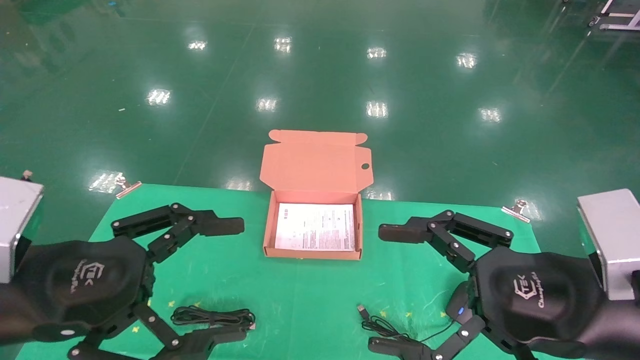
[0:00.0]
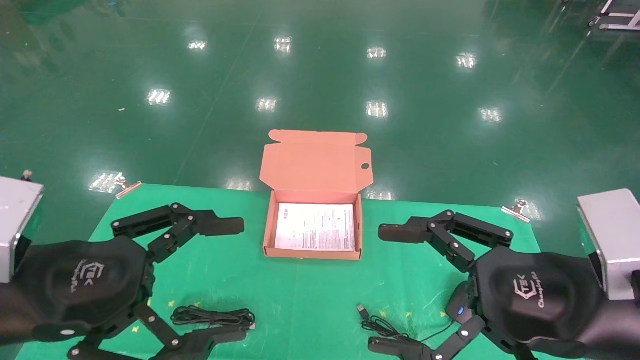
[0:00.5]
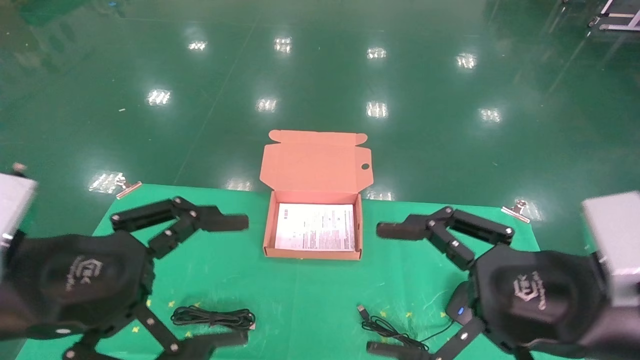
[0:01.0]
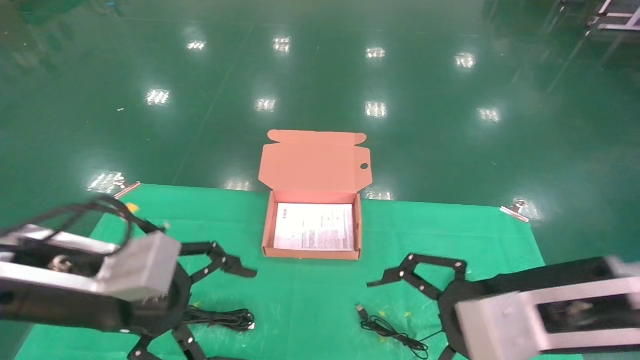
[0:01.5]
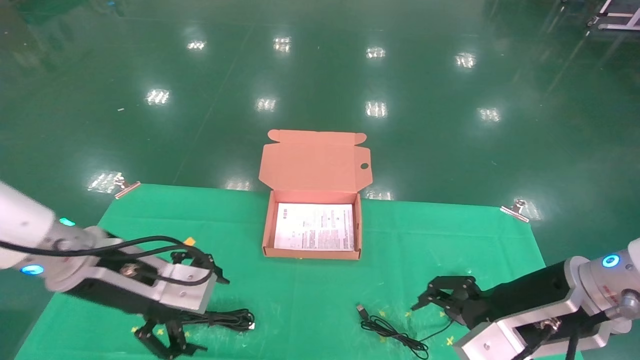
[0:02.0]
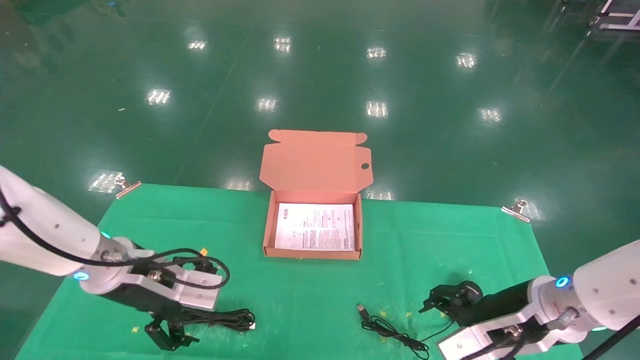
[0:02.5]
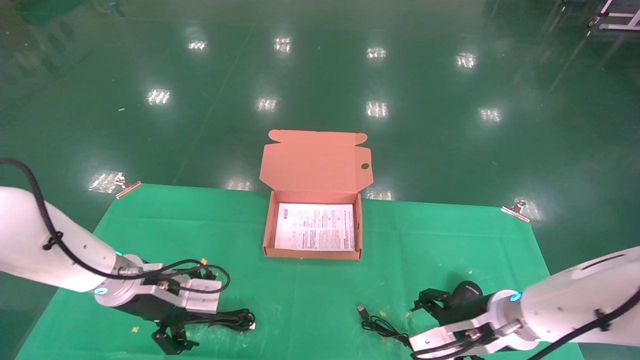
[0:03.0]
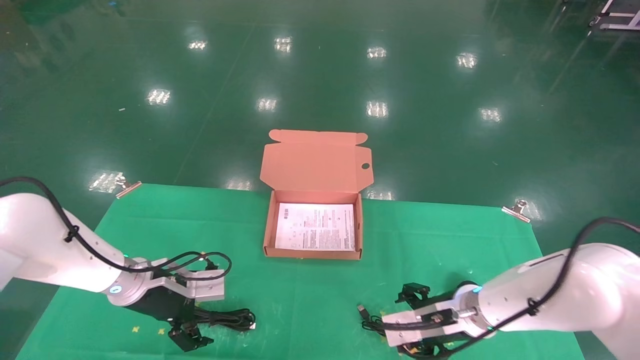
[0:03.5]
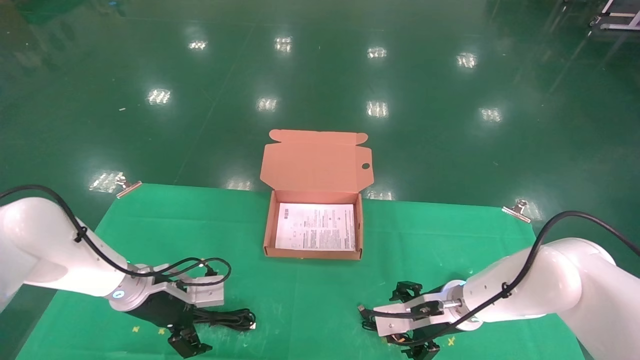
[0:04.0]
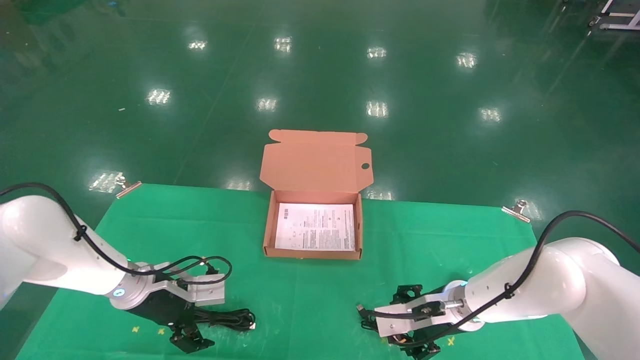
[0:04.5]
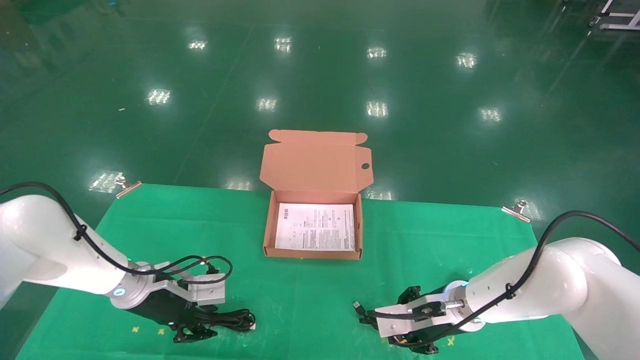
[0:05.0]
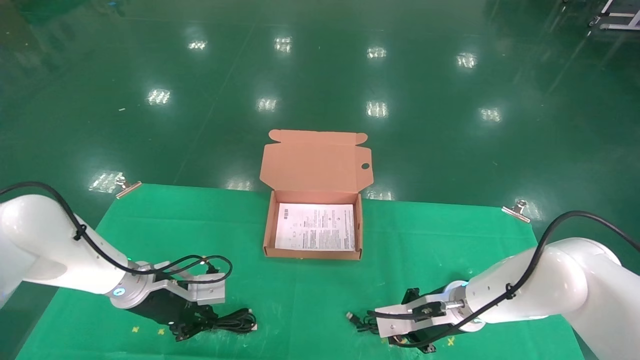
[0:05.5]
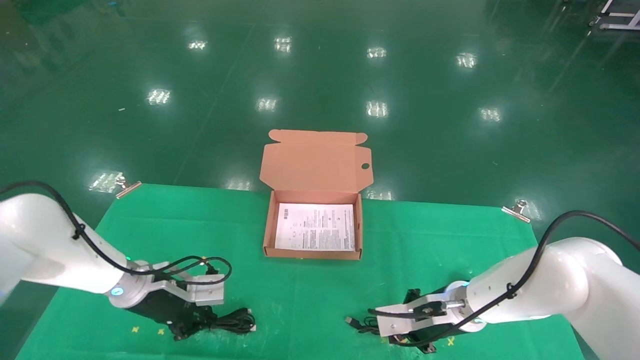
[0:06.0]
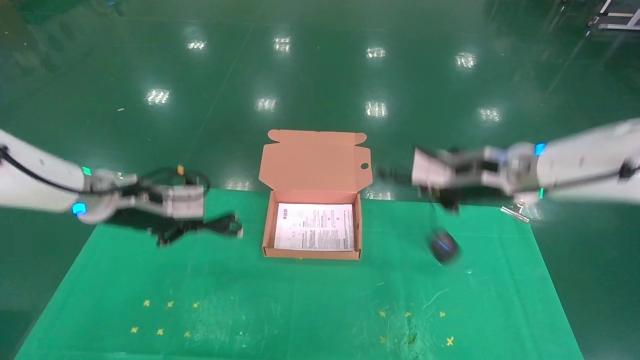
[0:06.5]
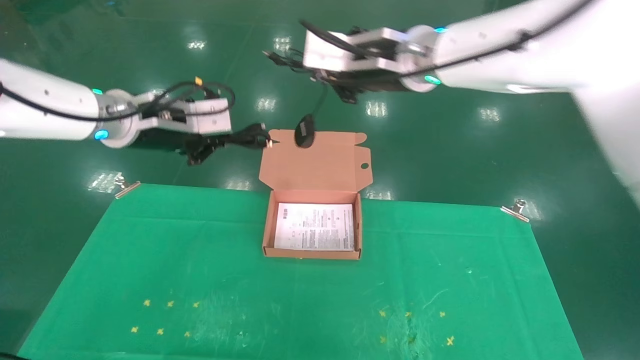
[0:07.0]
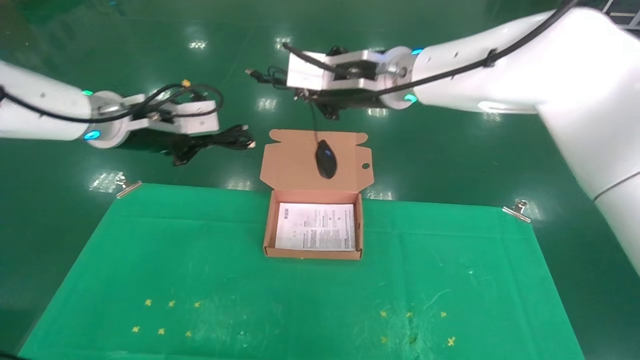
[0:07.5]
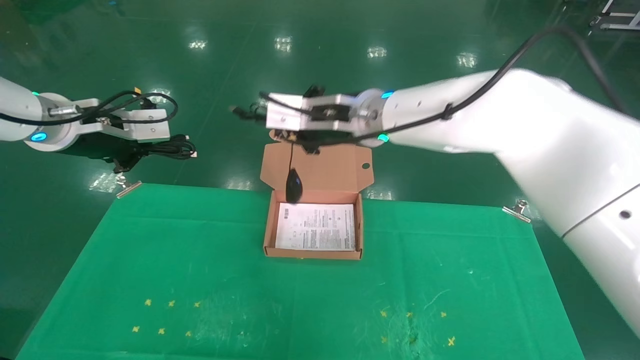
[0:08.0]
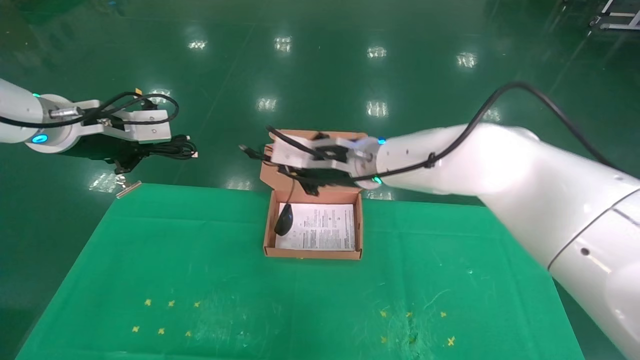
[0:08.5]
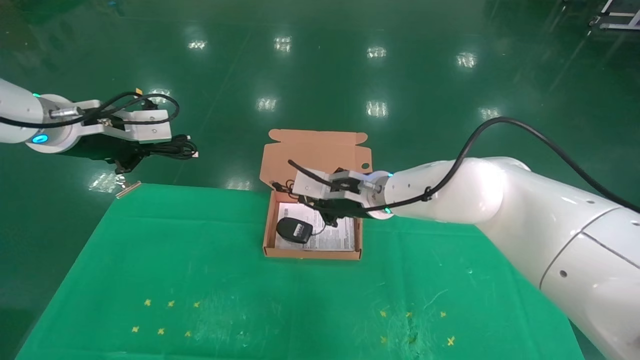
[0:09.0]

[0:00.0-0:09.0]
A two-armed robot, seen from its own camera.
Task of the whole recording: grasp data cable left put into box grasp mouse right put into box.
Step, 0:01.0 to 0:05.0: Grab and pick up both the mouse and power cord from the accessory packaging area at the same time.
0:00.0 to 0:02.0: The two grippers go approximately 10 cm forward.
0:02.0 to 0:04.5: The left gripper heads downward and forward, covering roughly 15 cm; the right gripper moves forward, downward and to the left, roughly 20 cm.
0:04.5 to 0:07.0: Both grippers move upward, approximately 30 cm. The right gripper closes; the left gripper closes its fingers.
0:07.0 to 0:09.0: The left gripper travels to the left by about 5 cm; the right gripper shifts some 20 cm downward.

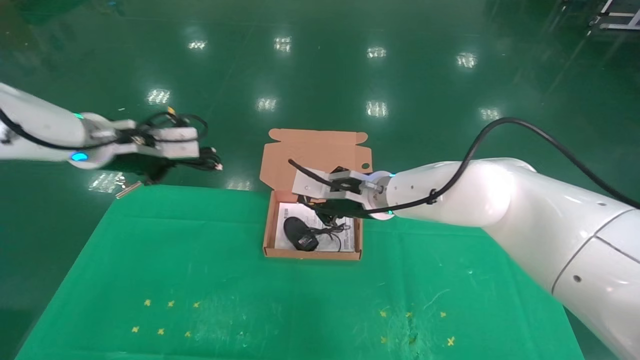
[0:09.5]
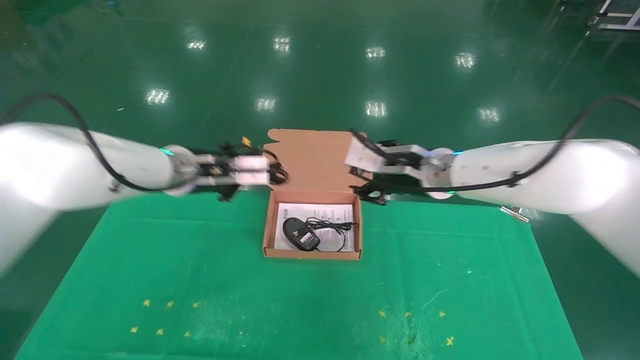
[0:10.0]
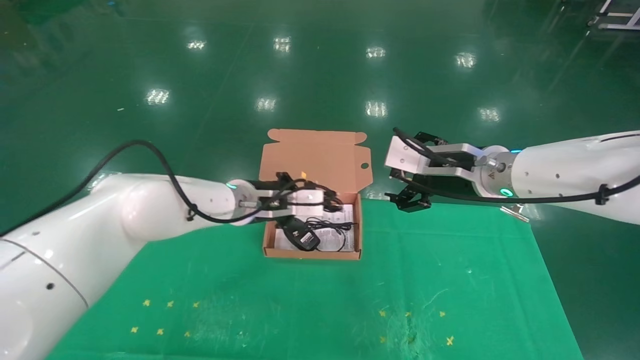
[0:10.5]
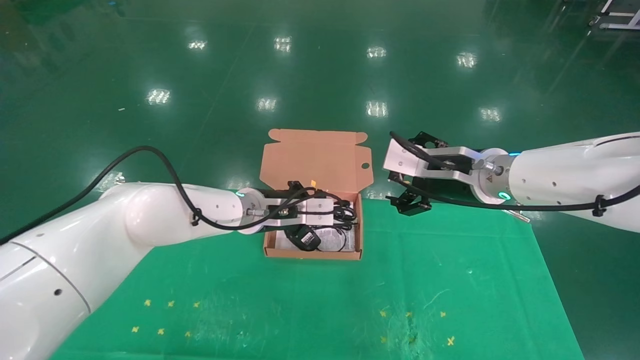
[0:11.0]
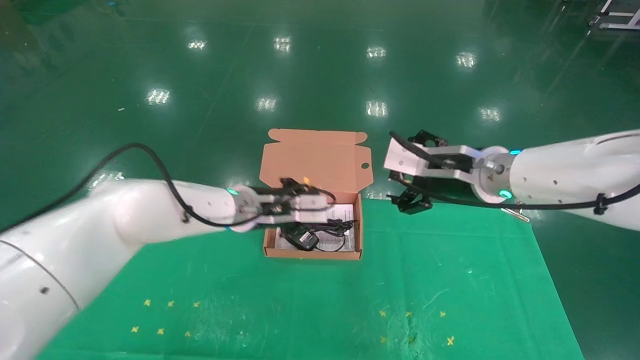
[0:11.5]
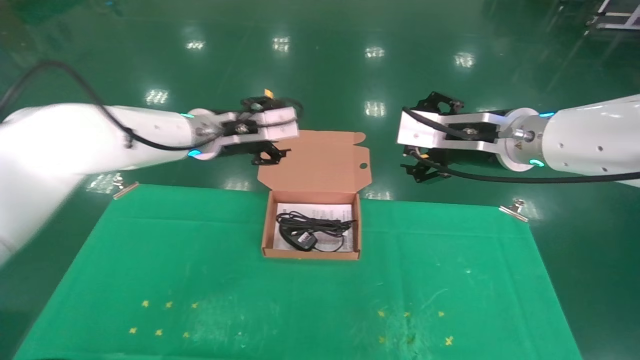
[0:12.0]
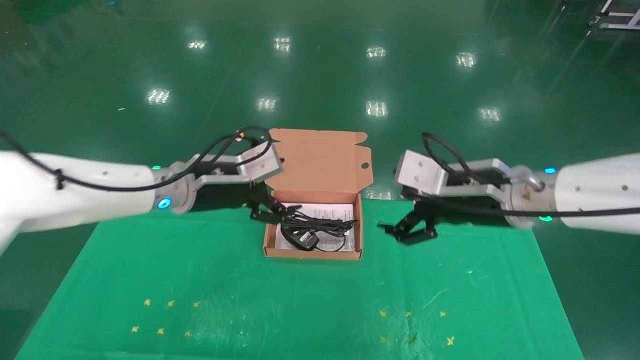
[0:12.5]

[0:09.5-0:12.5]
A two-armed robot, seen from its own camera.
Task of the whole recording: grasp data cable left put into box grasp mouse right put into box.
Step, 0:09.5 to 0:11.5: Place the mouse and power cord into the box.
0:09.5 to 0:11.0: The left gripper travels to the right and downward by some 20 cm; the right gripper is displaced to the right and backward by roughly 15 cm, and opens its fingers.
0:11.0 to 0:12.5: The right gripper moves roughly 5 cm. Meanwhile the left gripper is displaced to the left by roughly 10 cm, and opens up.

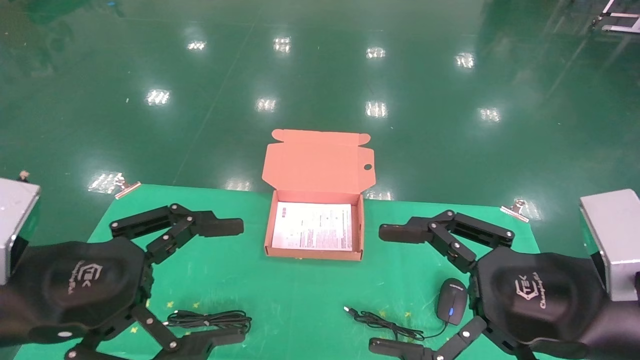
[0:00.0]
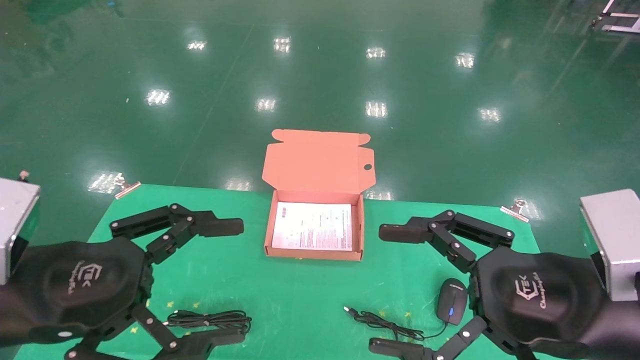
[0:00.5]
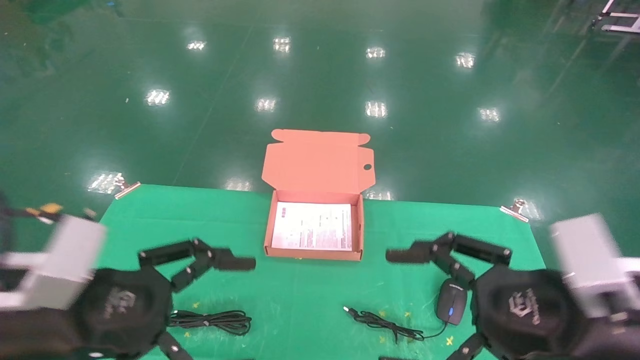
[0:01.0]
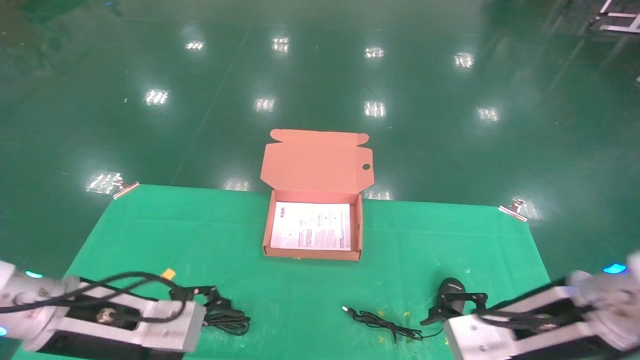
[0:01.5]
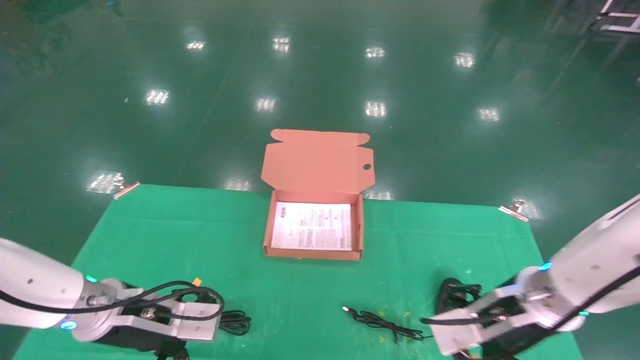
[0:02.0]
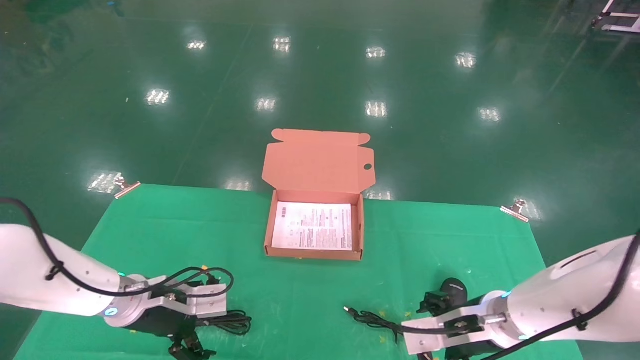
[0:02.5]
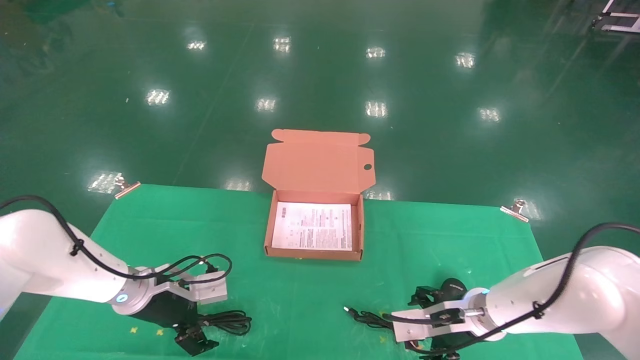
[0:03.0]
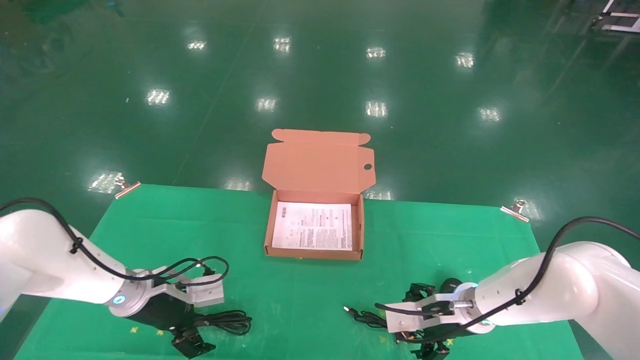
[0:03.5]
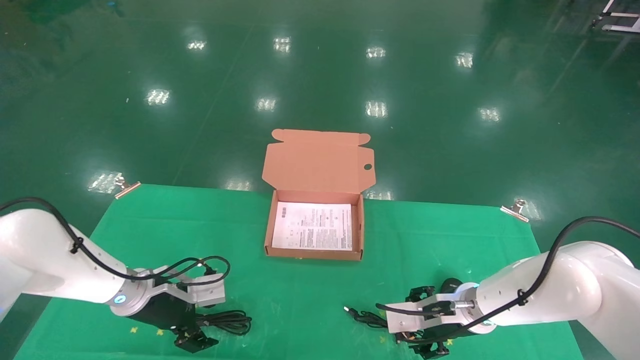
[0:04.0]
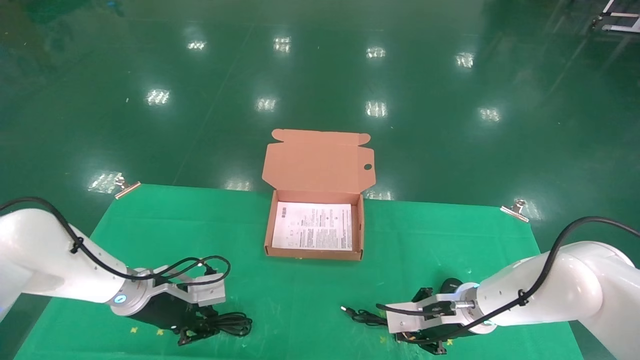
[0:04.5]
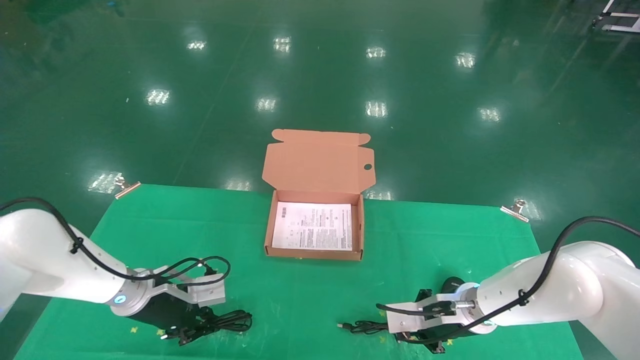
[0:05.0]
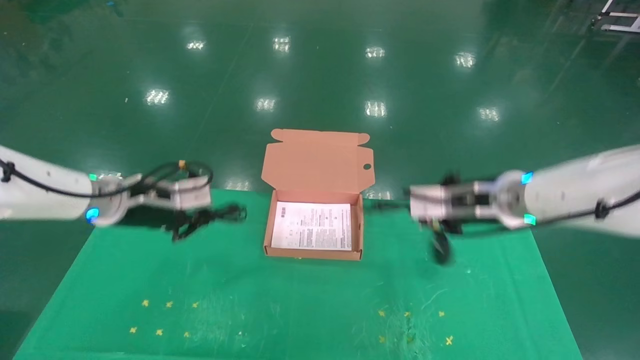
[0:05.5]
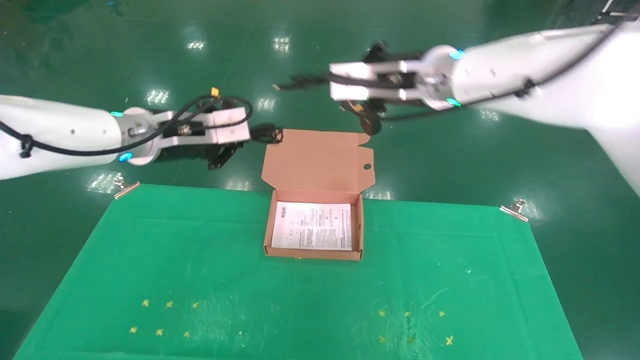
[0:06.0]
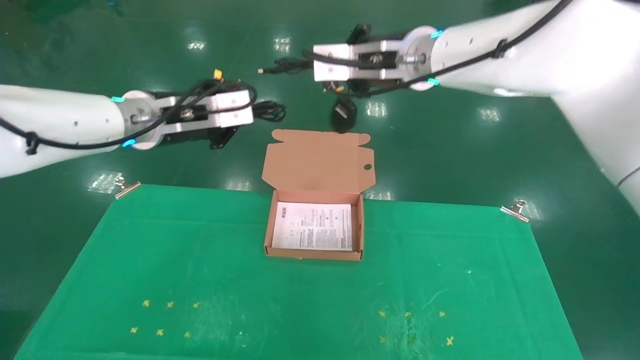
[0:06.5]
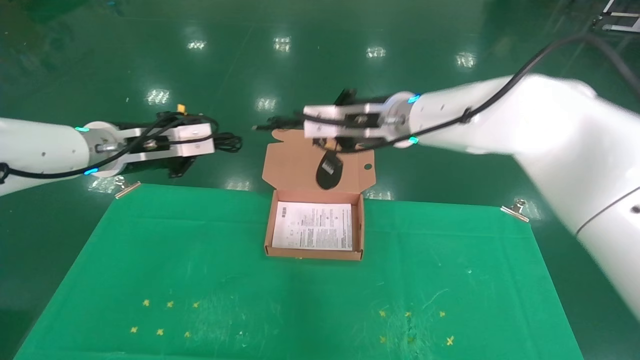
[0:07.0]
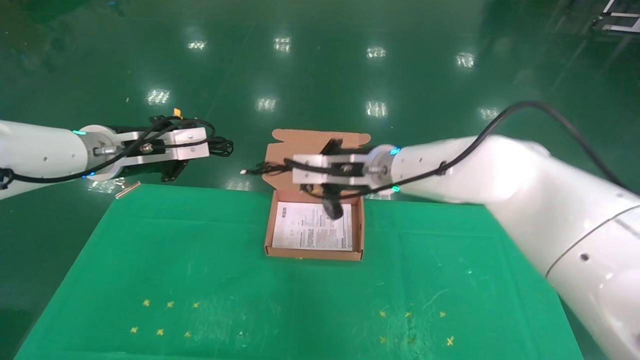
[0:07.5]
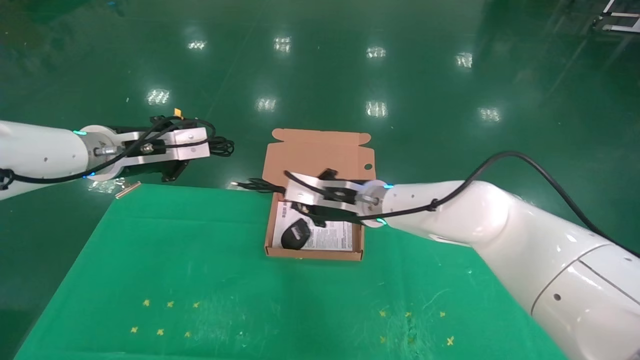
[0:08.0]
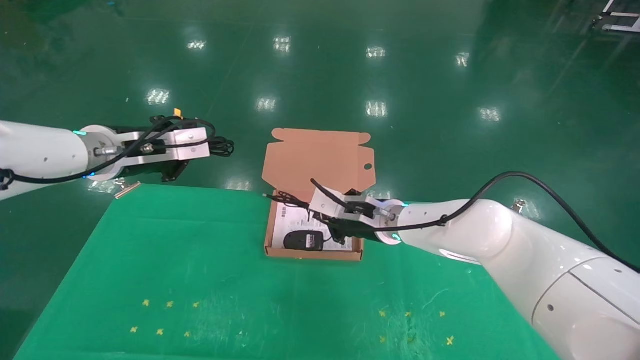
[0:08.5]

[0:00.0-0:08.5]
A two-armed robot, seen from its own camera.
Task of the whole recording: grasp data cable left put into box grasp mouse right put into box.
Step, 0:01.5 to 0:05.5: Grab and pick up both the mouse and power cord from the accessory packaging area at the same time.
0:00.0 to 0:02.0: The grippers both shift forward and downward by roughly 15 cm.
0:02.0 to 0:04.0: Both grippers move forward and downward, about 10 cm.
0:04.0 to 0:06.5: The two grippers go approximately 30 cm upward. The left gripper closes up; the right gripper closes its fingers.
0:06.5 to 0:08.5: The right gripper shifts roughly 25 cm downward. Meanwhile the left gripper shifts some 5 cm to the left.
